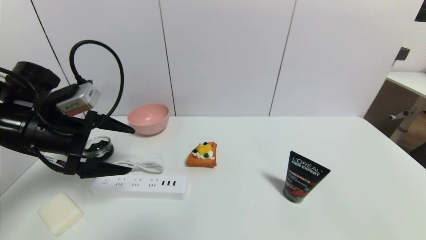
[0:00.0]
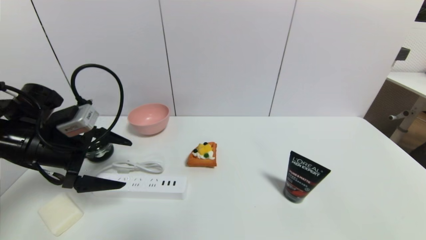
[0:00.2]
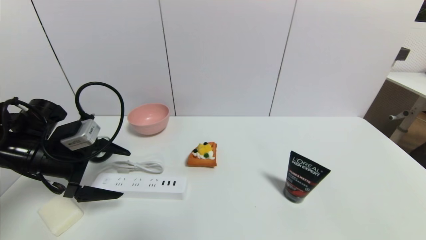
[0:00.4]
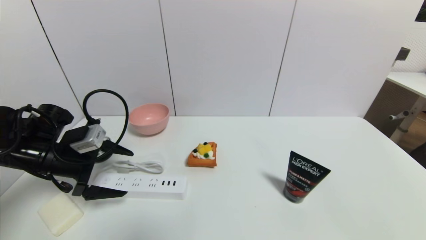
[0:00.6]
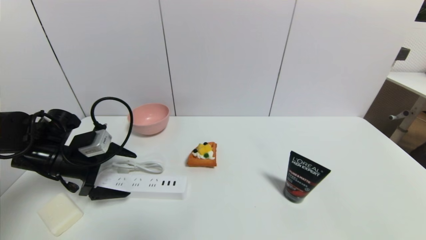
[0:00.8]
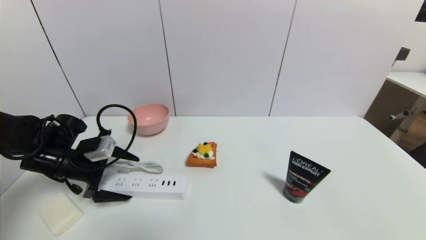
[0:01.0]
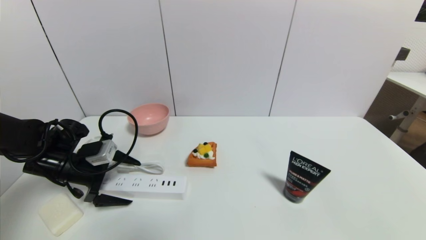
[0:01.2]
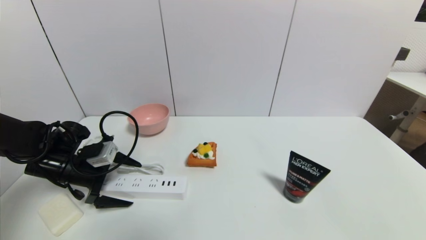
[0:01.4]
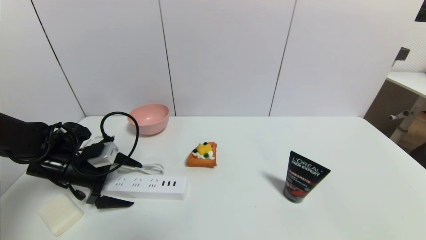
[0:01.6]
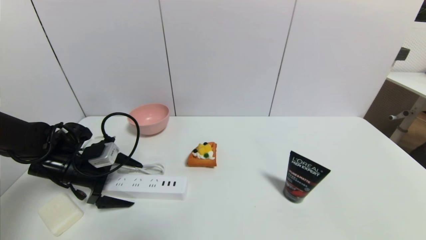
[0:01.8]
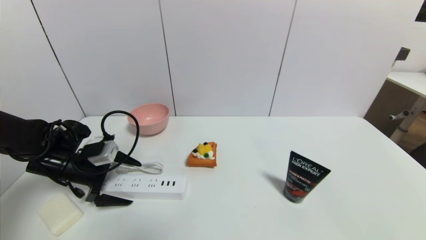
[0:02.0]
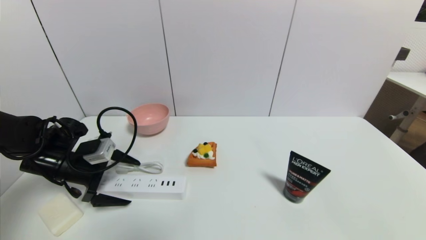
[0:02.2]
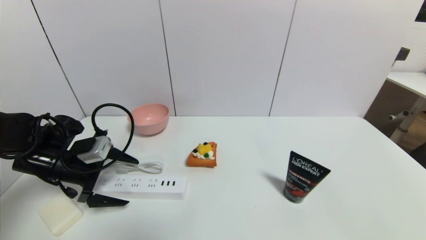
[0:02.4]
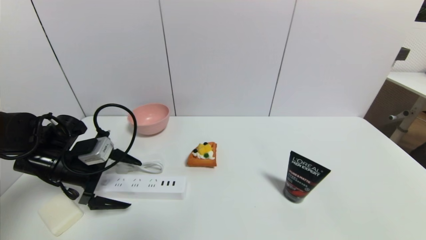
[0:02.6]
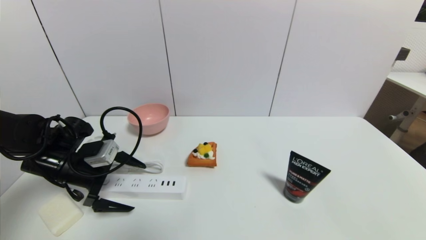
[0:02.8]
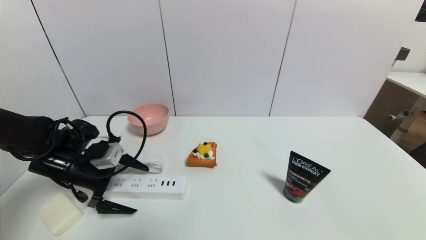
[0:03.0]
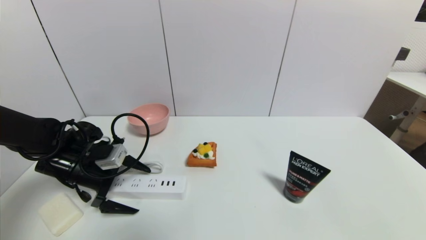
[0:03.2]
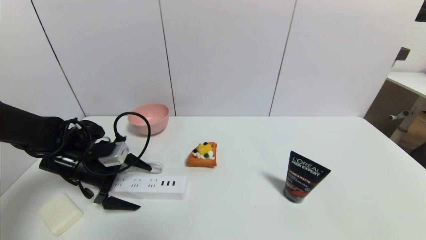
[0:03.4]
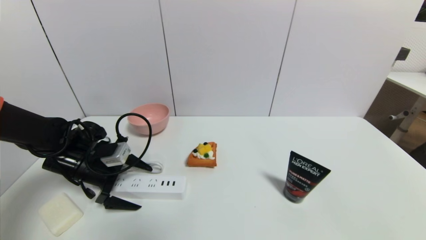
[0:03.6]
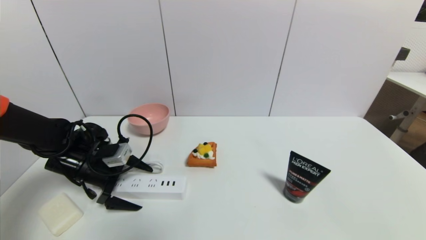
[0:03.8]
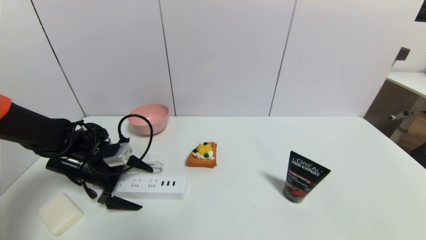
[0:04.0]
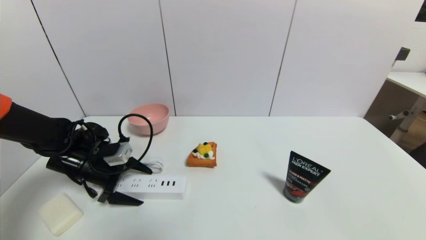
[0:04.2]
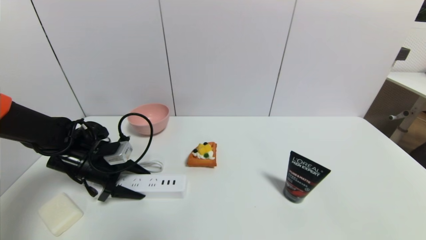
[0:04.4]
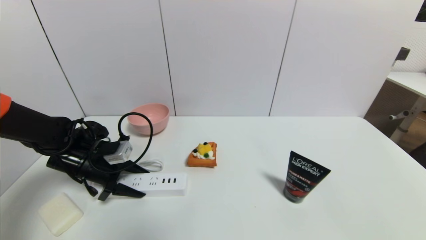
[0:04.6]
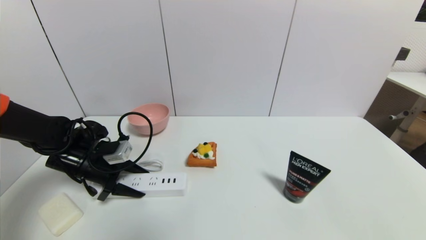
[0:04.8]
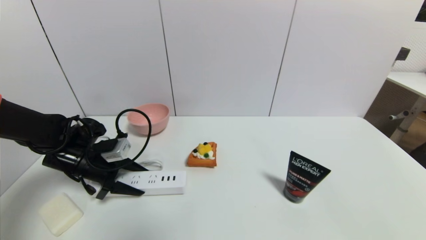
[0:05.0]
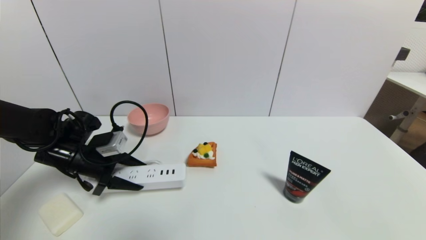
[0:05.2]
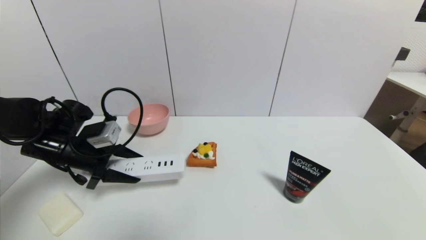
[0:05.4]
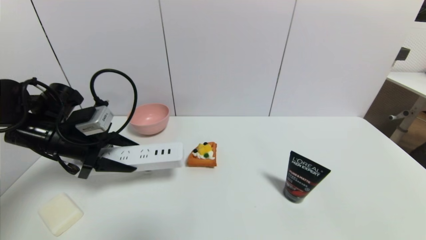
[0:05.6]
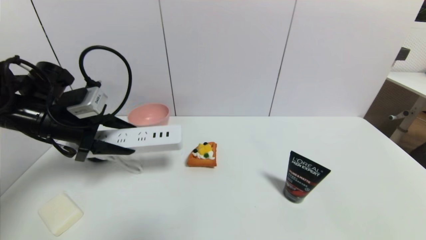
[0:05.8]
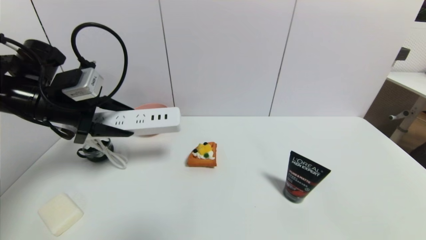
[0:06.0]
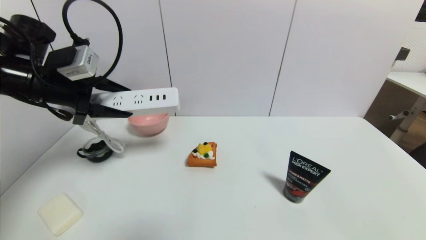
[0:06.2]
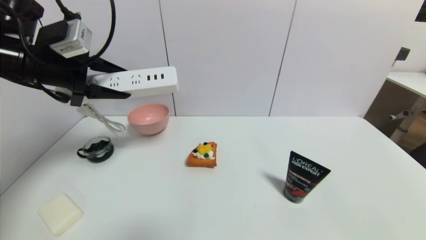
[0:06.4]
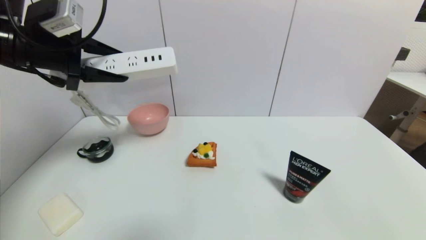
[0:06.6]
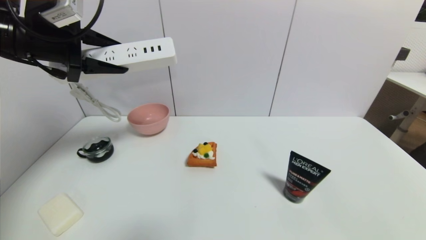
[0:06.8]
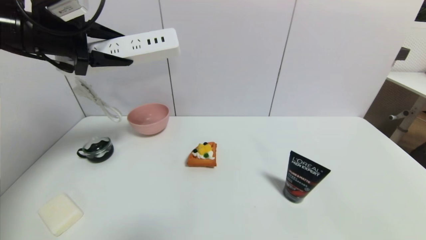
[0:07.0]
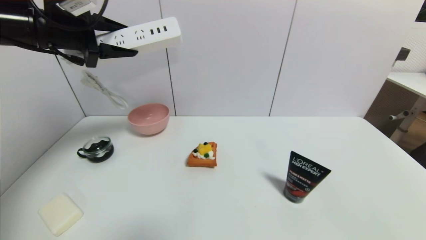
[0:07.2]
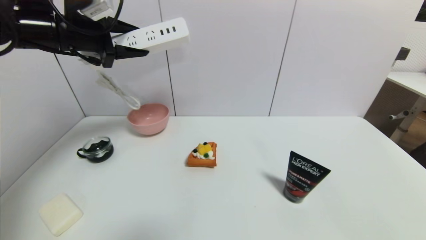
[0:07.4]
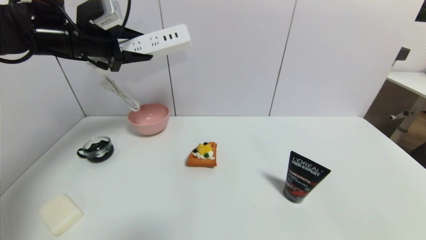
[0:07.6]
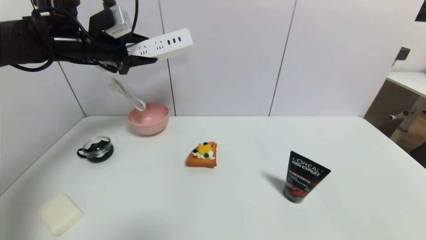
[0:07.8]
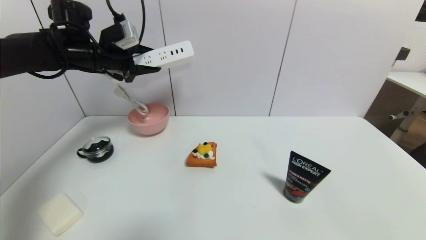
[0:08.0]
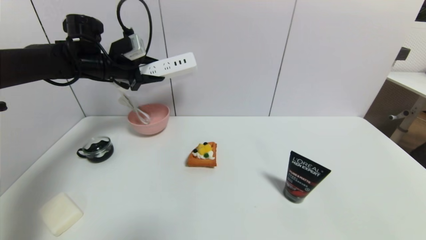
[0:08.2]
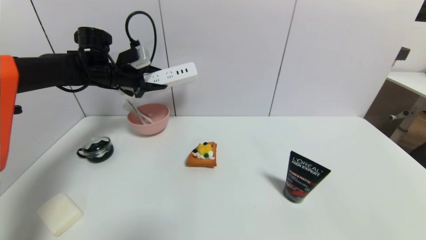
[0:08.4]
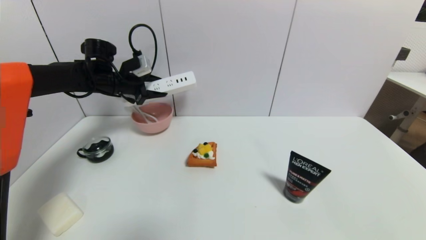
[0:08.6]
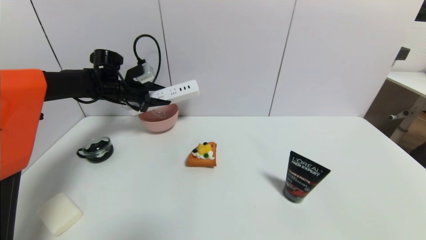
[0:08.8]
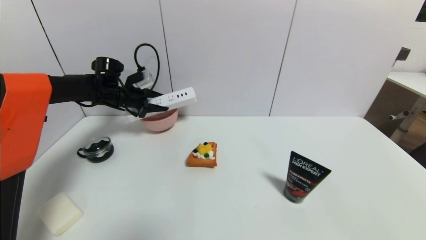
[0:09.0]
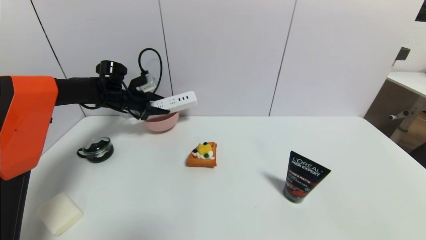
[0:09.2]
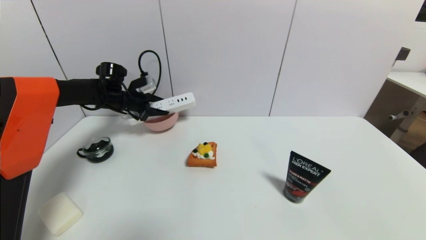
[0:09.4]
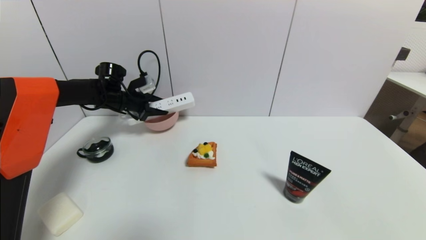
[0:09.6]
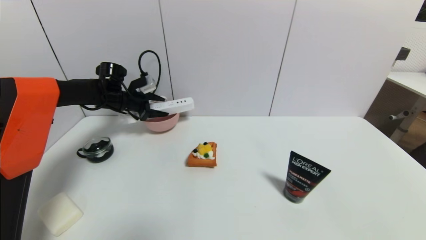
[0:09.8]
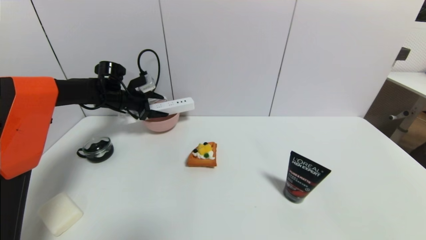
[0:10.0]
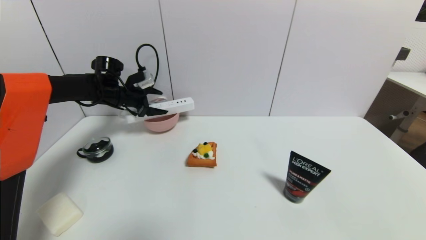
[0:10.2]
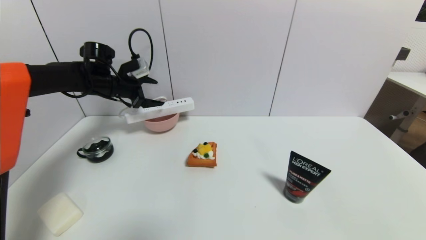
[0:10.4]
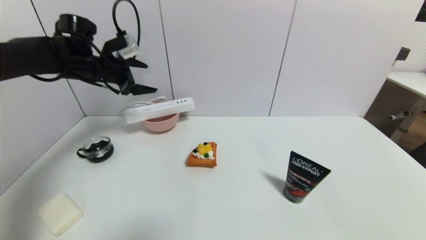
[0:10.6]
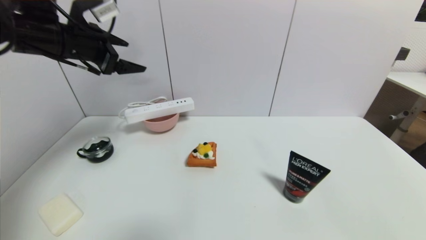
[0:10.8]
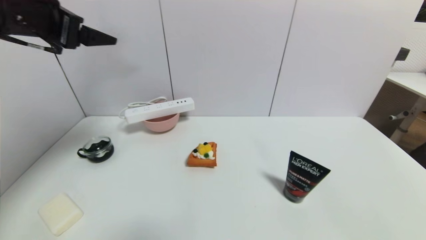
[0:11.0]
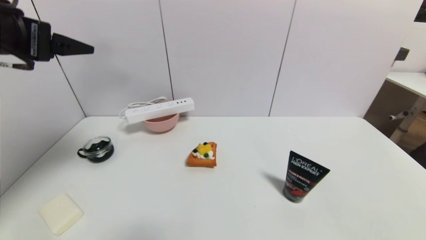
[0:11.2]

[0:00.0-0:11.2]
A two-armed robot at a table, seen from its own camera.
Task of the whole recording: use a gripper to pick the target object and place on the pink bowl.
Step, 0:00.0 to 0:04.6: Grasp the plugboard with the left gripper.
Step, 0:04.8 to 0:10.2: Place the plugboard on the pink bowl with the left gripper.
0:00.0 to 0:01.6: The left gripper heads downward, covering roughly 15 cm.
0:01.6 to 0:03.2: The grippers move only a little.
0:03.2 to 0:04.8: The left gripper closes its fingers.
0:04.8 to 0:06.4: The left gripper goes some 25 cm upward.
0:06.4 to 0:08.0: The left gripper is displaced forward by roughly 10 cm.
0:08.0 to 0:09.6: The left gripper moves downward and forward, some 15 cm.
0:09.6 to 0:11.2: The left gripper shifts about 35 cm backward and upward, and opens up.

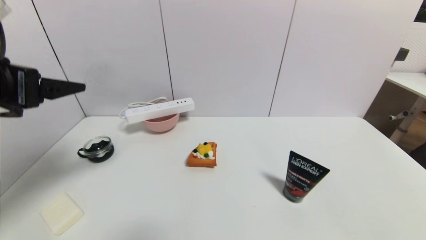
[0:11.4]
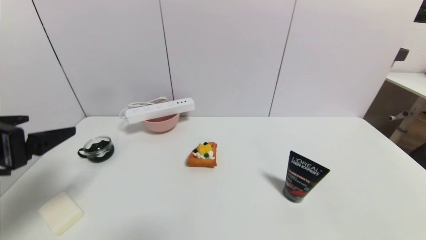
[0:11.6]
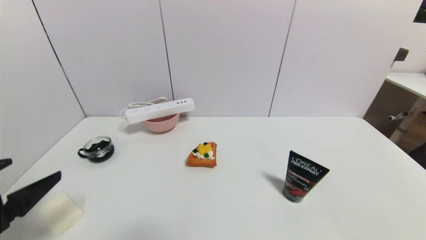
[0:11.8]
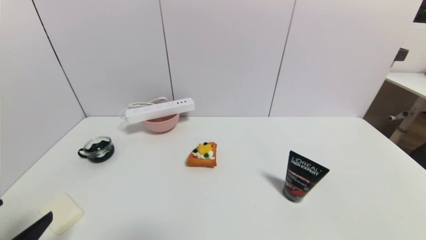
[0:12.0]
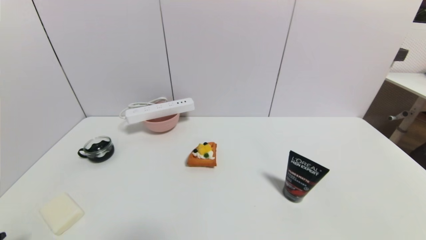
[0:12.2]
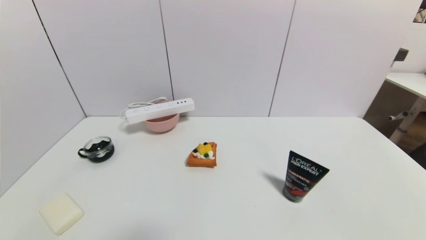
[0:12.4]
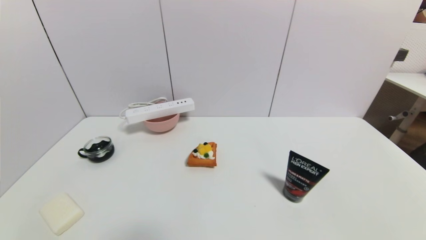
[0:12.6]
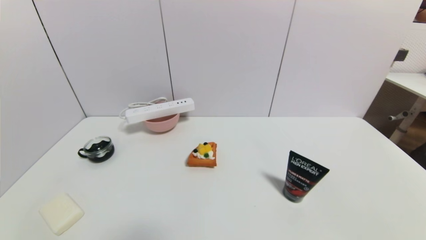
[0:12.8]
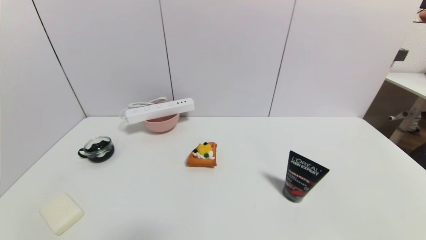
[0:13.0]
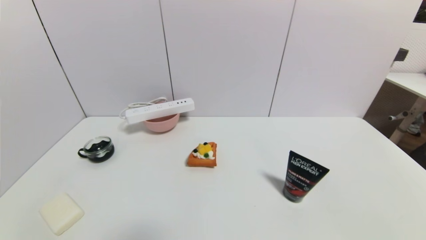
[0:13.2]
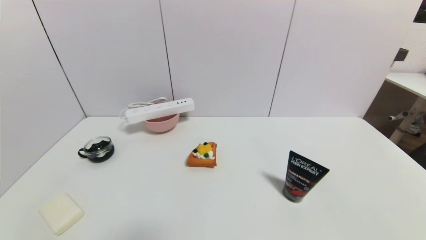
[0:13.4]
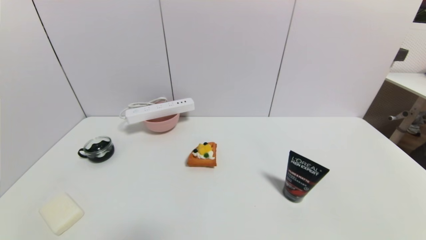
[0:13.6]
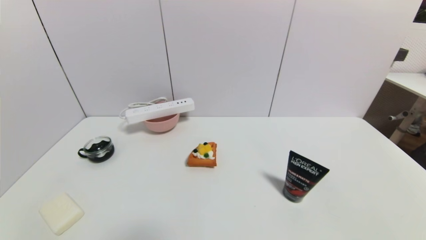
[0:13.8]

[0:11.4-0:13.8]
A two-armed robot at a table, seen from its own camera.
Task of the whole recording: use a gripper to pick the target object and place on the pink bowl.
0:11.4 to 0:12.6: The left gripper goes some 30 cm downward and backward.
0:12.6 to 0:13.8: Both grippers stay about where they are.
